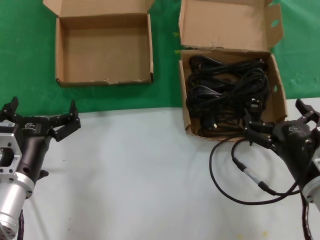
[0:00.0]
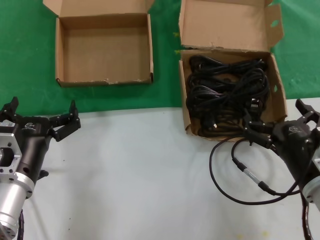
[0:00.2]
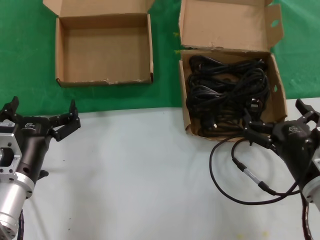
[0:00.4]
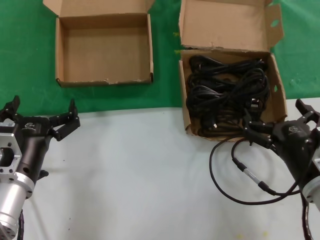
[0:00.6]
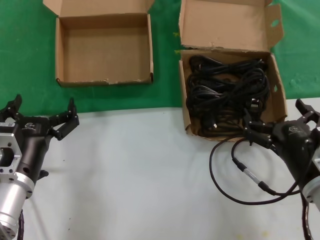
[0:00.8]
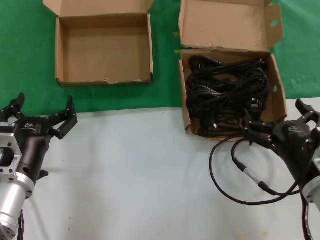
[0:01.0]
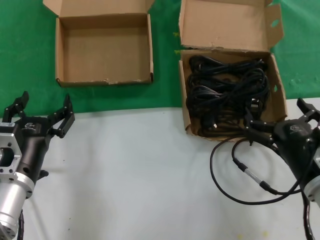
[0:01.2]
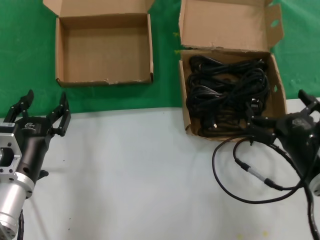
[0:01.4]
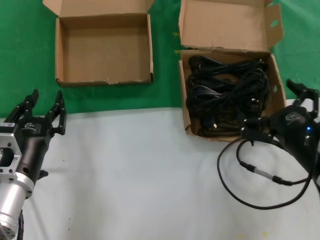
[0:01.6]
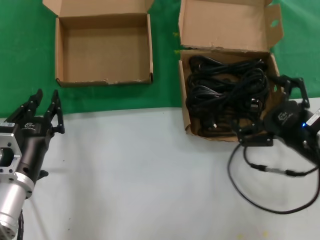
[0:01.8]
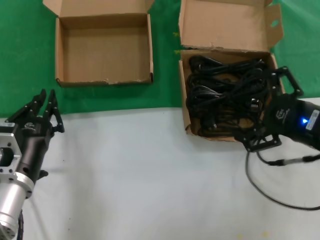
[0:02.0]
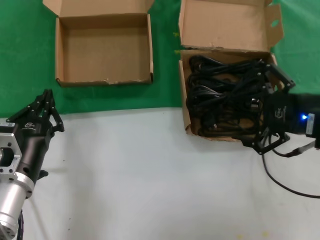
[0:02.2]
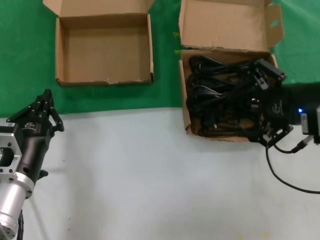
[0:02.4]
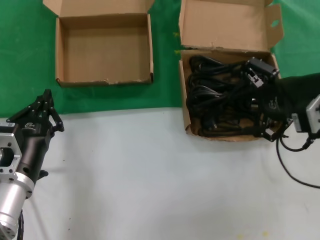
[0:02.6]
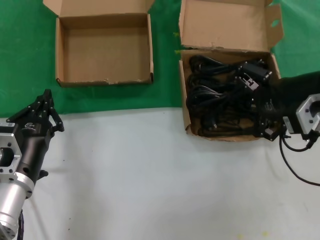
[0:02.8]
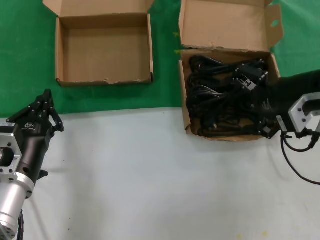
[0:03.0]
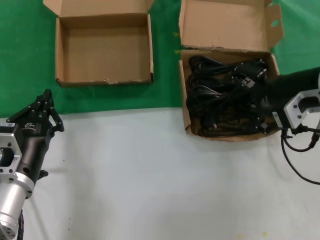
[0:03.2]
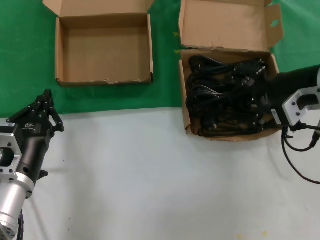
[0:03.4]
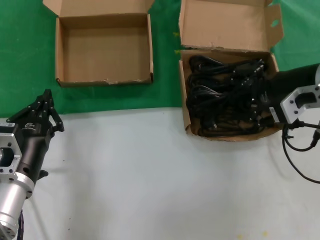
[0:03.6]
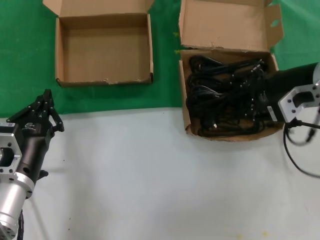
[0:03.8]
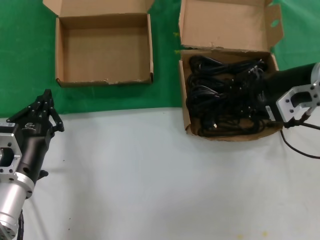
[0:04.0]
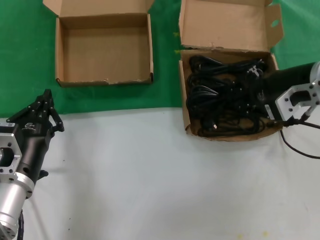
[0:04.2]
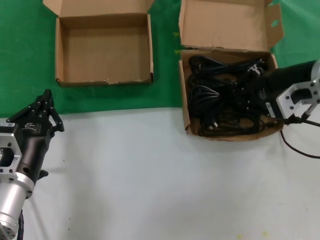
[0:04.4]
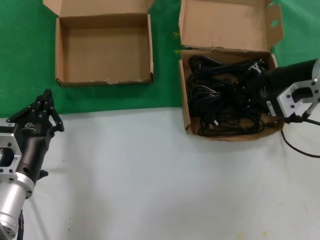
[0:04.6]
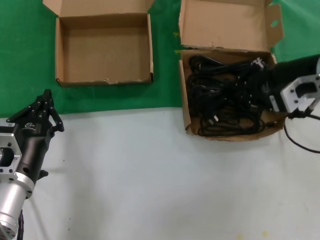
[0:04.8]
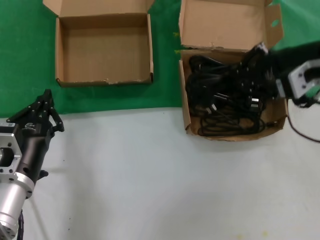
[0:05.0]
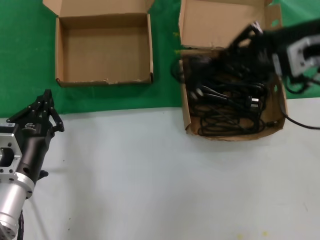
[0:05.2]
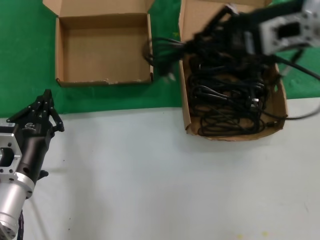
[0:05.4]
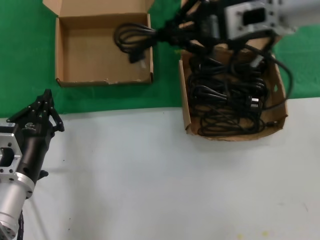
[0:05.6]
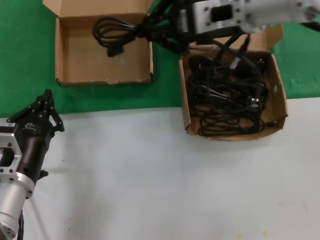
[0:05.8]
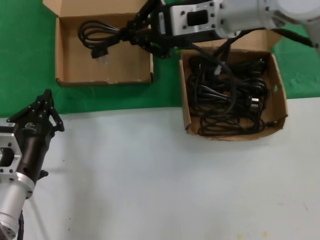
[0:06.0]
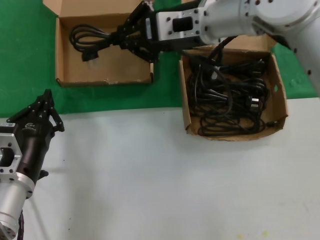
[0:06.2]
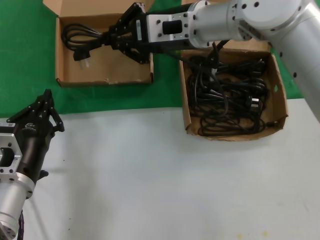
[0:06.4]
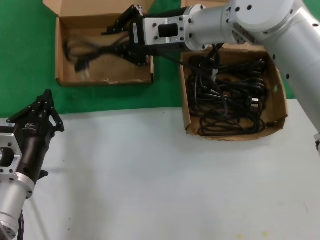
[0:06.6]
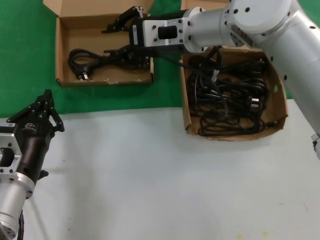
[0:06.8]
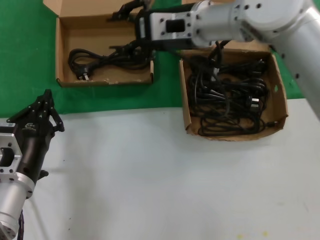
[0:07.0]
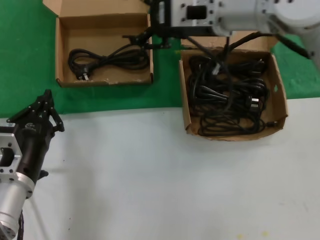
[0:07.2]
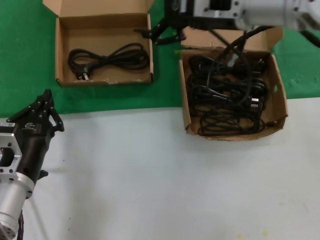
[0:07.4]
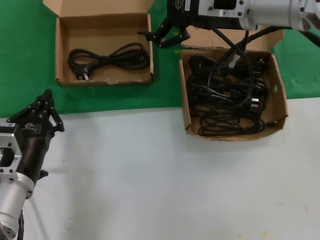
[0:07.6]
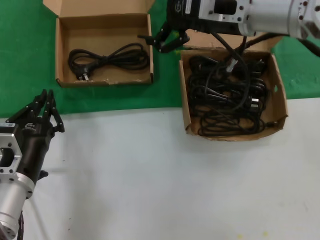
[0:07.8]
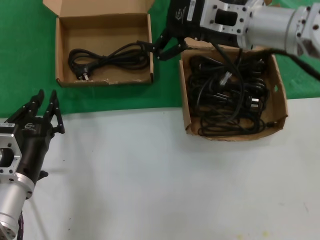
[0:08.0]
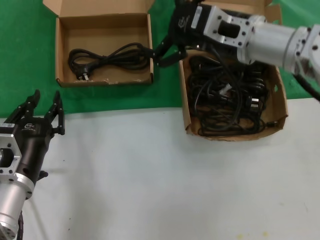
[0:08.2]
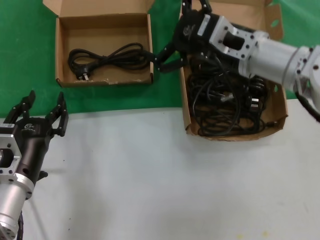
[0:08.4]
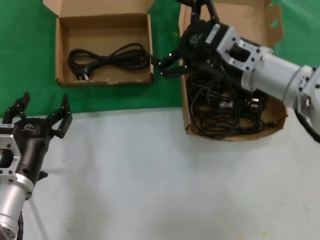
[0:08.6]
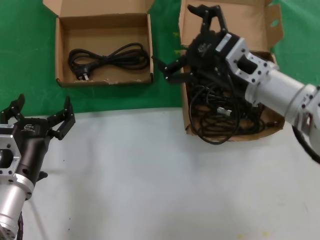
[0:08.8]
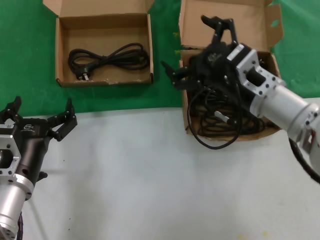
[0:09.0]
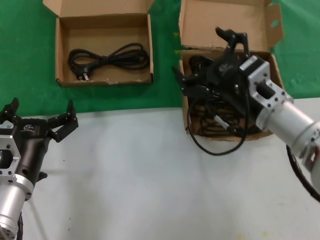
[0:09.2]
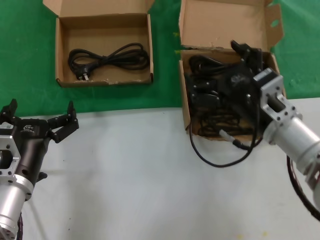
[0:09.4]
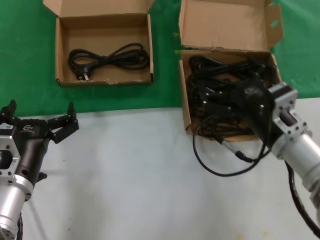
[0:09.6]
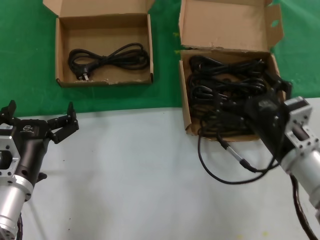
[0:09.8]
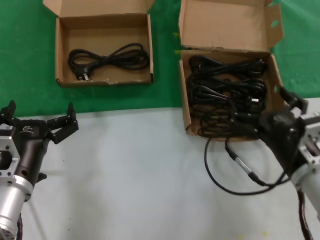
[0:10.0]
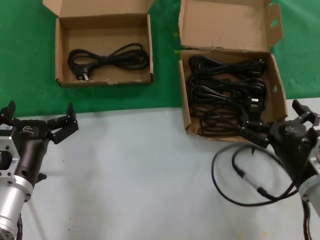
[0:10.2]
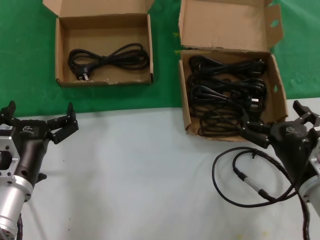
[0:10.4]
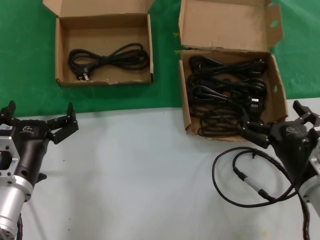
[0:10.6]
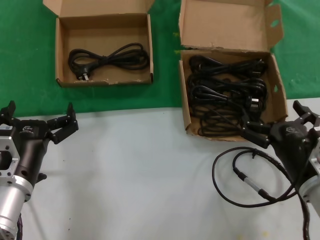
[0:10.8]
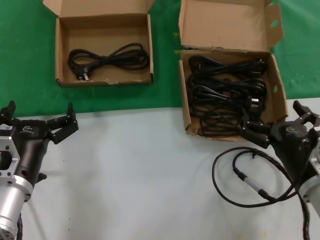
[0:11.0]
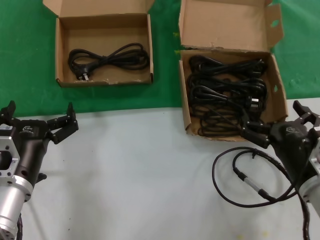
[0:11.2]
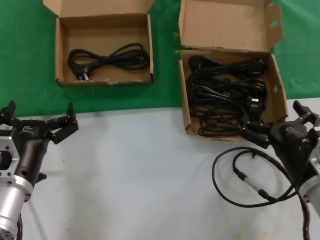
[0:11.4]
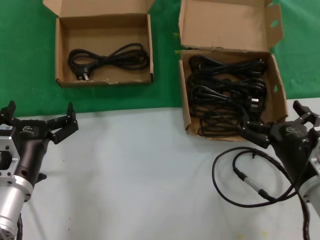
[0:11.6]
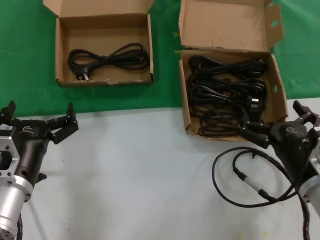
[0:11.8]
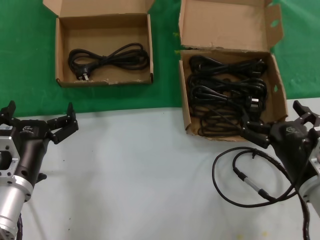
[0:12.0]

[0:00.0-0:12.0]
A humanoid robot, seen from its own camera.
Task of the whole recording: take the parts from the box containing them and put them into an empty box.
Step, 0:00.0 to 0:04.2: Grasp the data cable.
Step, 0:04.4 to 0:06.6: Place the data cable in the another box.
0:00.0 to 0:01.6: There are only small adjustments of the hands.
0:01.6 to 0:03.0: The right hand is displaced upward and forward by about 20 cm.
0:03.0 to 0:04.4: There are only small adjustments of the hands.
0:04.4 to 0:06.0: The right hand travels to the left and upward by roughly 20 cm.
0:07.6 to 0:09.0: The right hand is displaced downward by some 15 cm.
0:09.0 to 0:10.4: The right hand moves downward, backward and to the right, approximately 20 cm.
0:10.4 to 0:12.0: The two hands keep their place.

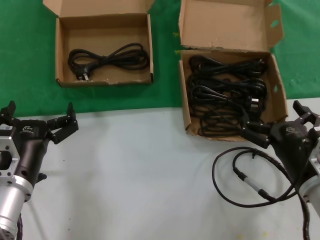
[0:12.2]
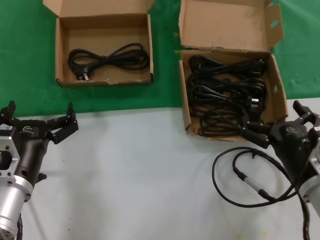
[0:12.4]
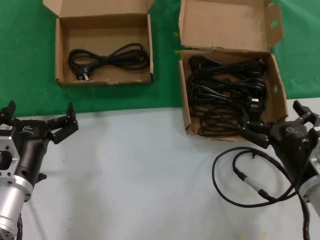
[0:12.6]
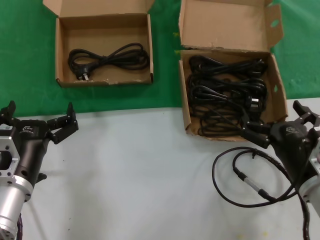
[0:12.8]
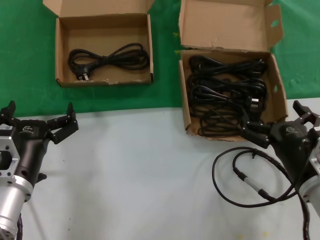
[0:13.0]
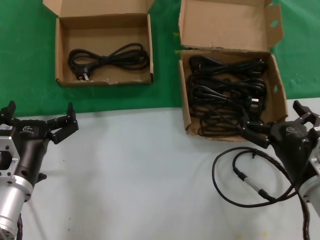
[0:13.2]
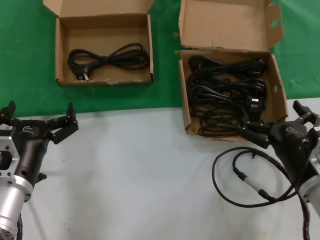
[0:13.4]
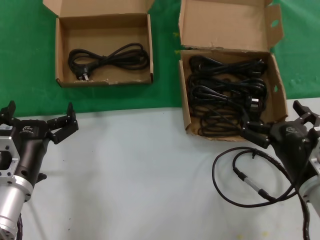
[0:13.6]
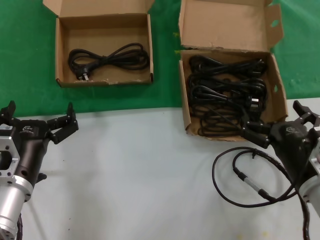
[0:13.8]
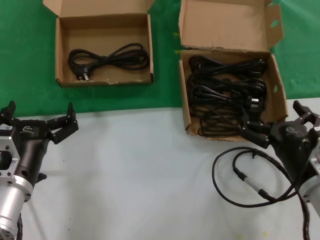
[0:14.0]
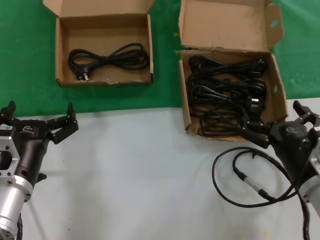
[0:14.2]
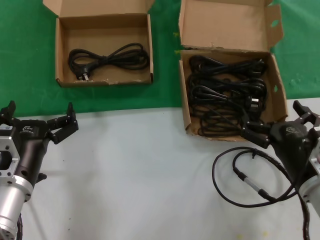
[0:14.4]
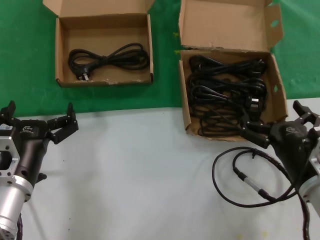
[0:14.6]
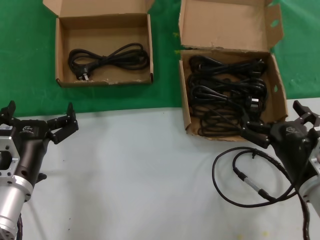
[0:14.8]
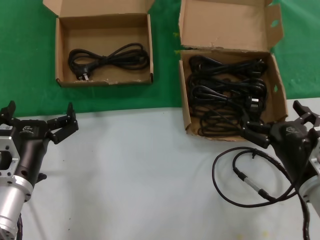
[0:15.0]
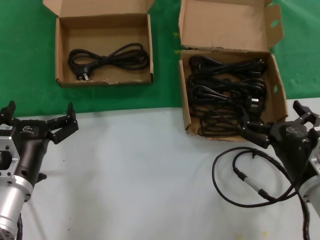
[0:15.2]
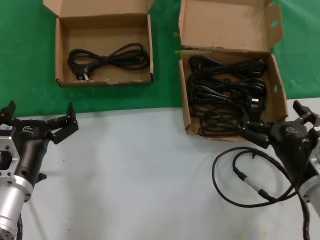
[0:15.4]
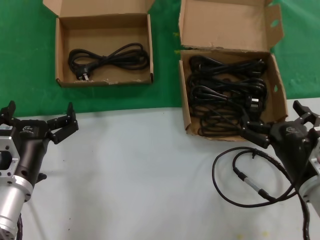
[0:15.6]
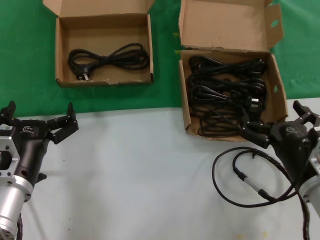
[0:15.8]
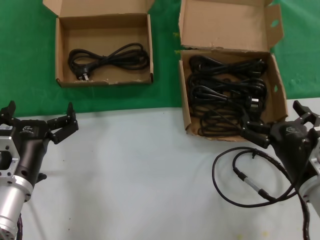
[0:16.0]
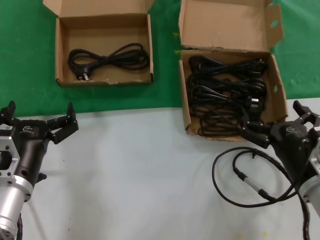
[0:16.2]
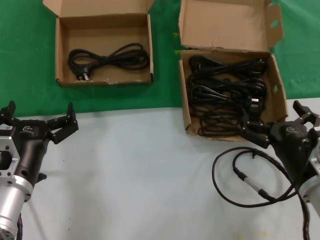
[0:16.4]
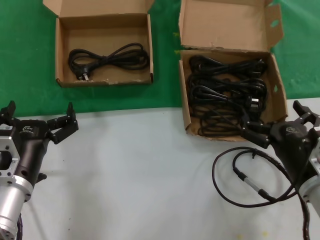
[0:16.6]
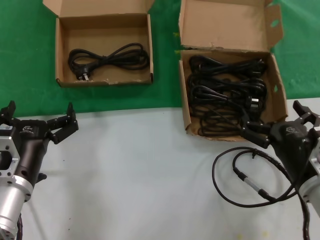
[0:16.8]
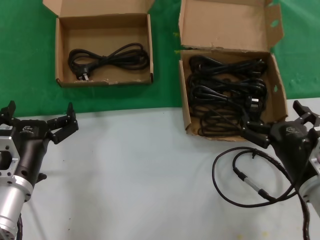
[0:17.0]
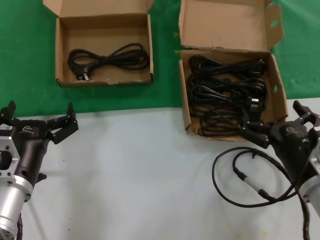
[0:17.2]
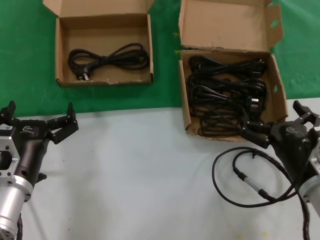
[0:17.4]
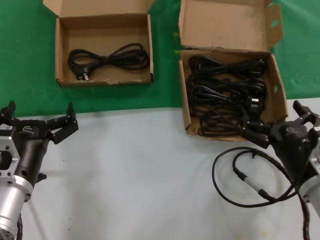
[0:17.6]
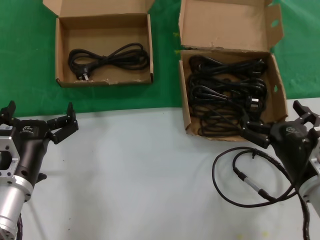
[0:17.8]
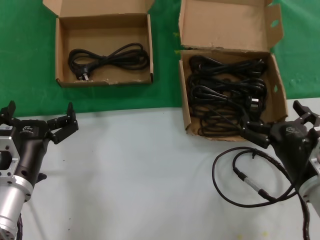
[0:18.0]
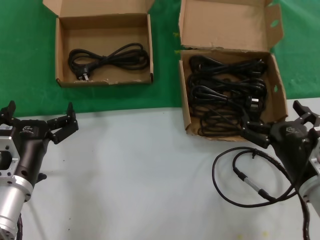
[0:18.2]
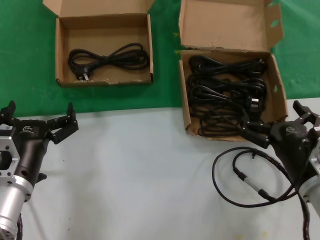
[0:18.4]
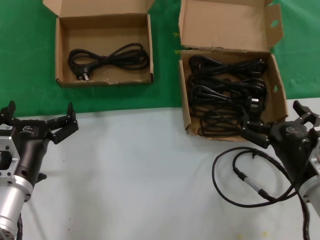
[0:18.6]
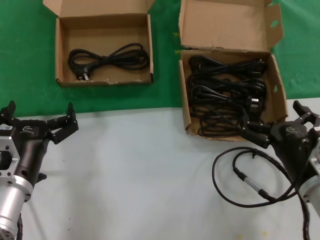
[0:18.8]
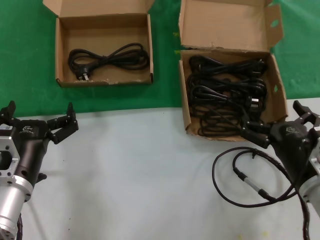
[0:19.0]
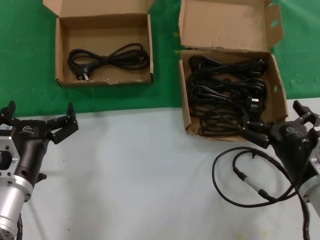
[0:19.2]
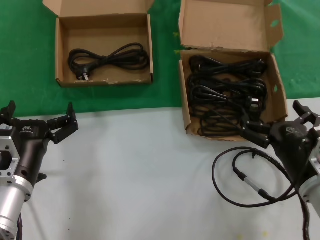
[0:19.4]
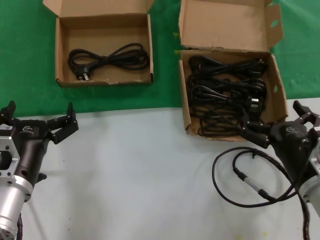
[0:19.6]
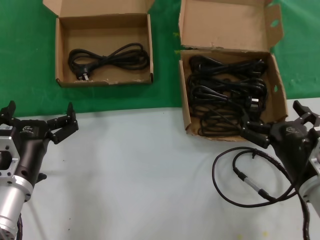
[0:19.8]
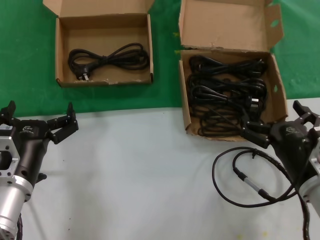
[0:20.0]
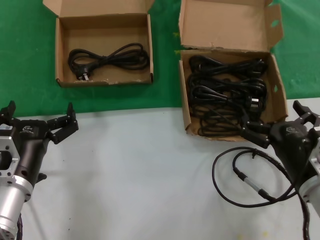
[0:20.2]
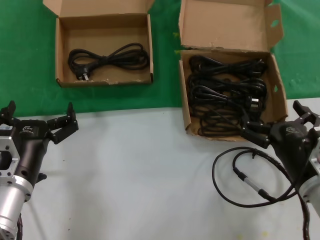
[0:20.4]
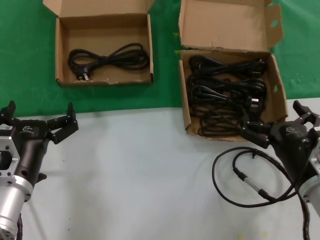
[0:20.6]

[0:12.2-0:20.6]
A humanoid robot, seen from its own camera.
Task of the whole recording: take the parts from the box containing them and put them into an empty box.
0:12.2 to 0:20.6: Neither hand changes place.

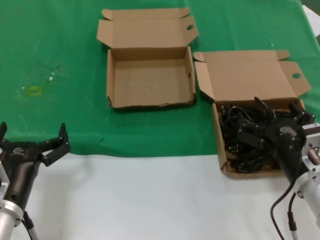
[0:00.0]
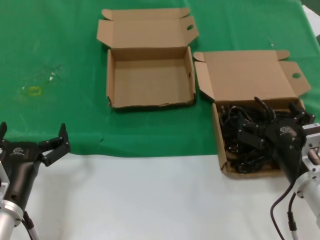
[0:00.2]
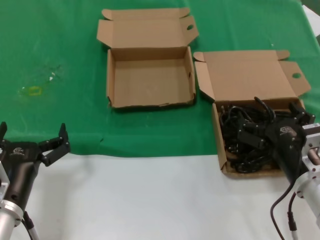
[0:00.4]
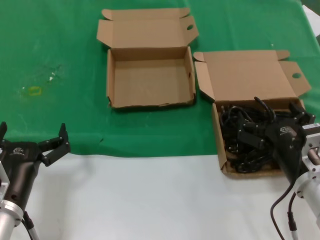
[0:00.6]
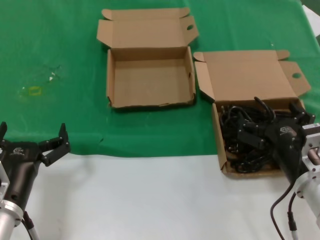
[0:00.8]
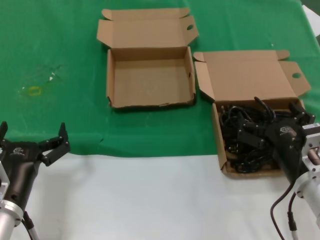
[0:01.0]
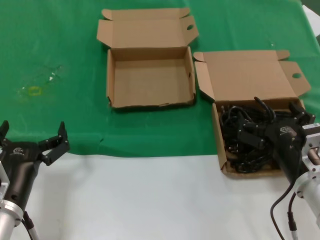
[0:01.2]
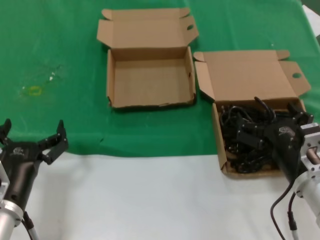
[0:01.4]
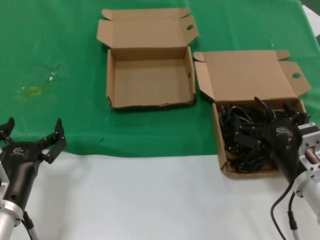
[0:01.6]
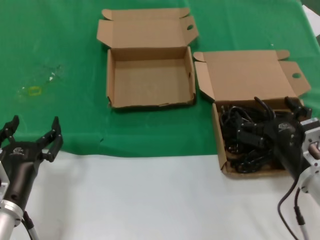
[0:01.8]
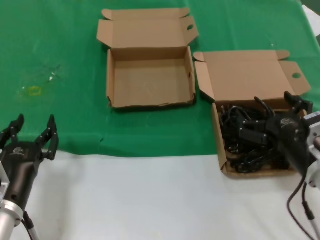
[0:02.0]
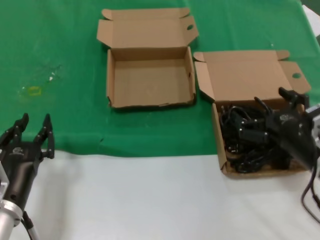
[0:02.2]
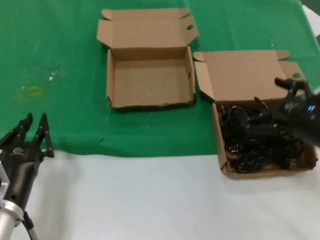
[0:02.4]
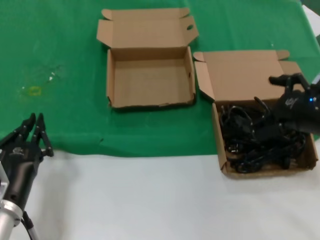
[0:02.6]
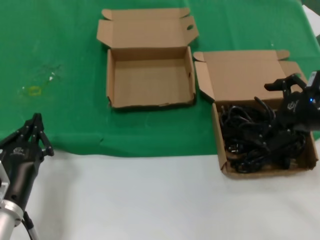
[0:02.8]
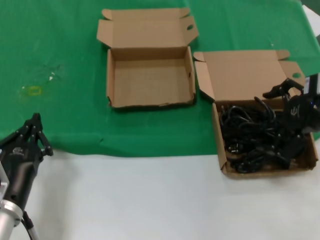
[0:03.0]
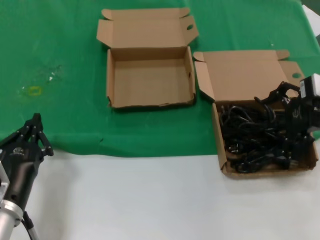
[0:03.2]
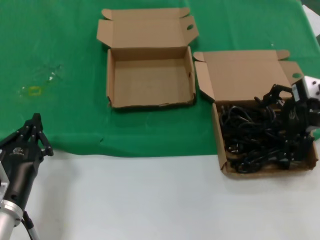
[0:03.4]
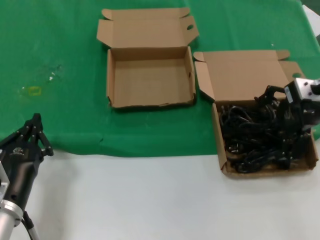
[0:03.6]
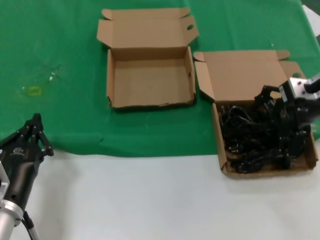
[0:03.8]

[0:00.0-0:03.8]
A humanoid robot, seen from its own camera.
Task of the whole recording: take the parts from the box containing them and put them into an empty box.
0:00.0 to 0:01.2: Both hands stay put.
0:01.2 to 0:02.6: The right hand is displaced upward and to the right by some 15 cm.
0:02.6 to 0:03.8: The right hand goes approximately 15 cm forward and upward.
